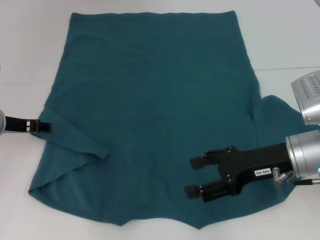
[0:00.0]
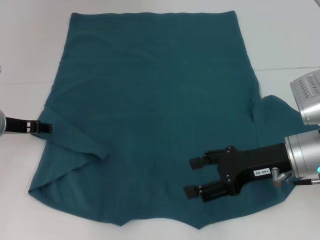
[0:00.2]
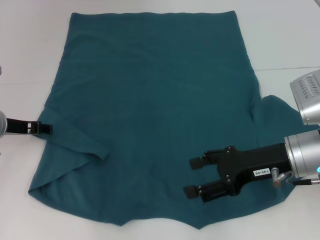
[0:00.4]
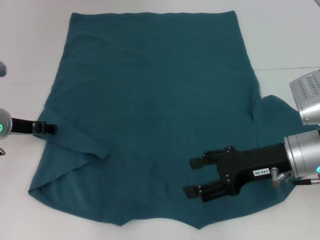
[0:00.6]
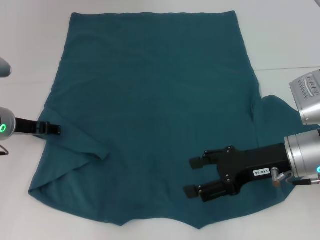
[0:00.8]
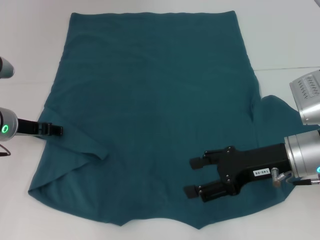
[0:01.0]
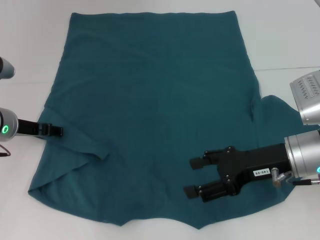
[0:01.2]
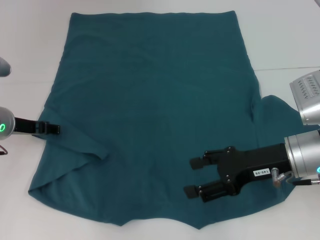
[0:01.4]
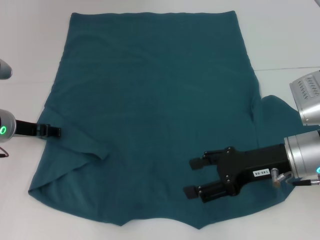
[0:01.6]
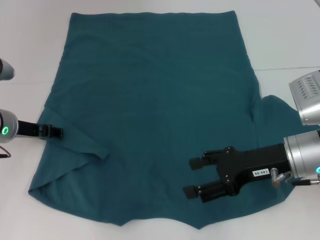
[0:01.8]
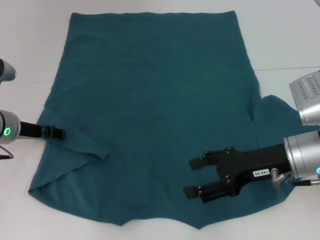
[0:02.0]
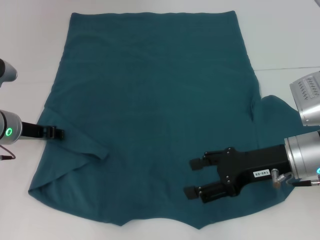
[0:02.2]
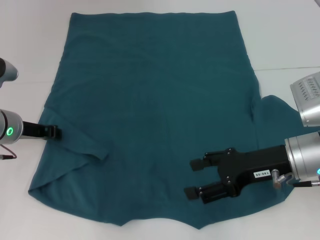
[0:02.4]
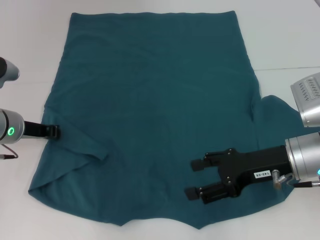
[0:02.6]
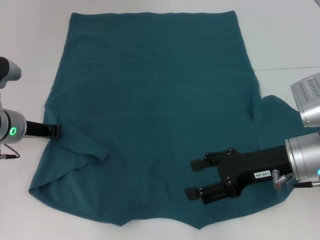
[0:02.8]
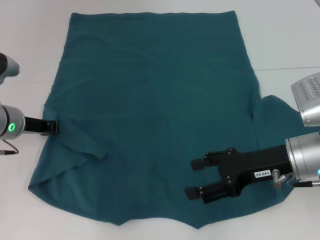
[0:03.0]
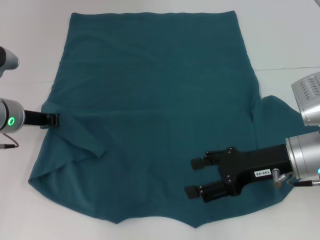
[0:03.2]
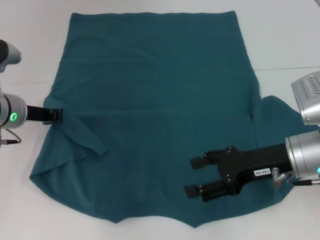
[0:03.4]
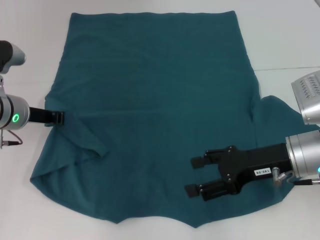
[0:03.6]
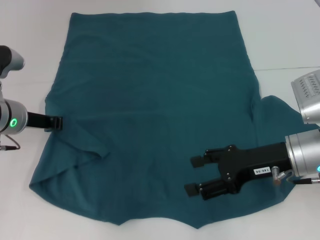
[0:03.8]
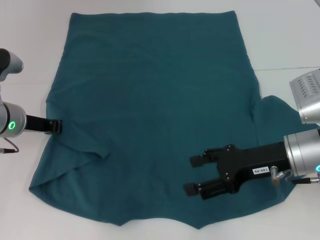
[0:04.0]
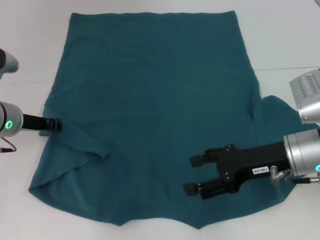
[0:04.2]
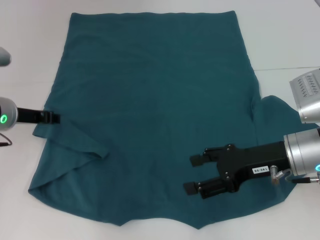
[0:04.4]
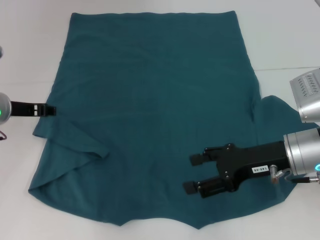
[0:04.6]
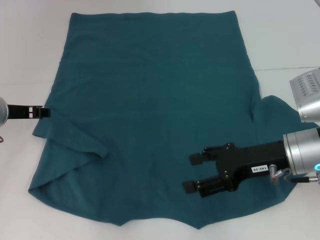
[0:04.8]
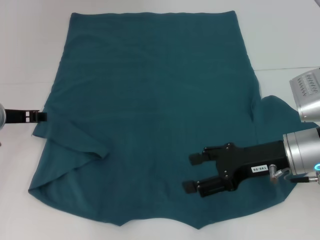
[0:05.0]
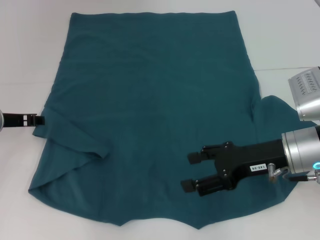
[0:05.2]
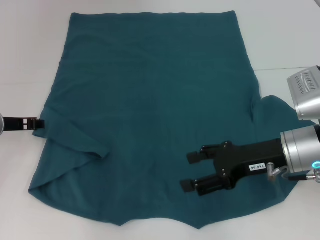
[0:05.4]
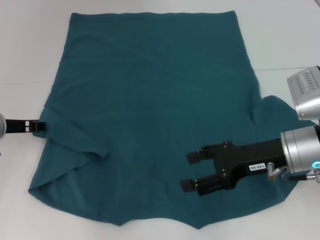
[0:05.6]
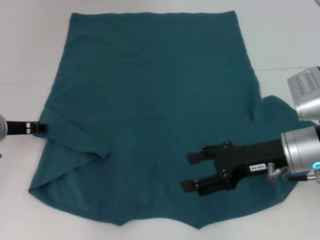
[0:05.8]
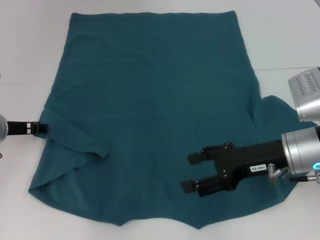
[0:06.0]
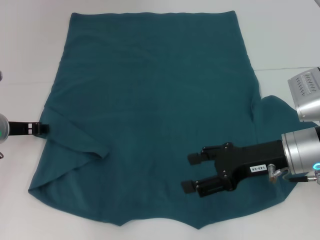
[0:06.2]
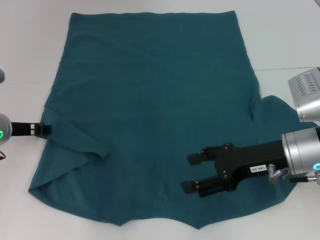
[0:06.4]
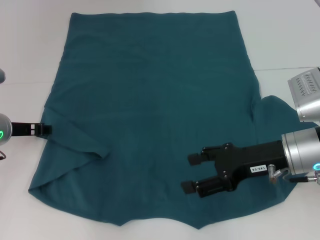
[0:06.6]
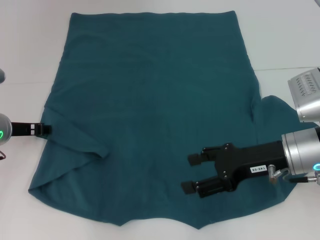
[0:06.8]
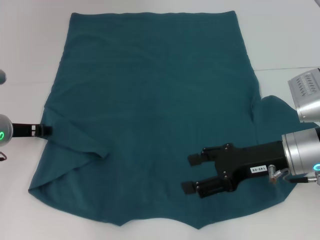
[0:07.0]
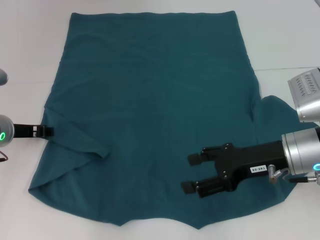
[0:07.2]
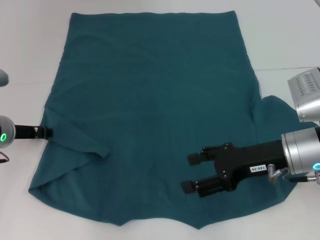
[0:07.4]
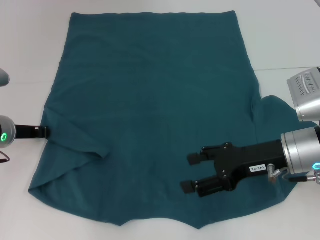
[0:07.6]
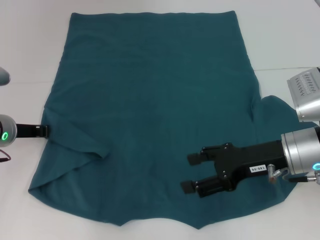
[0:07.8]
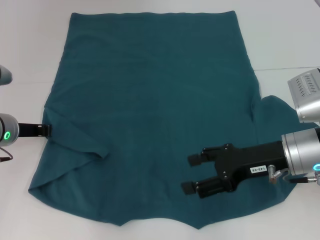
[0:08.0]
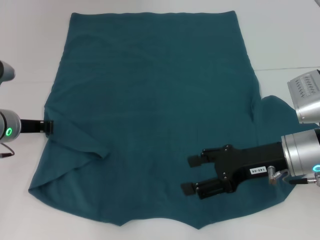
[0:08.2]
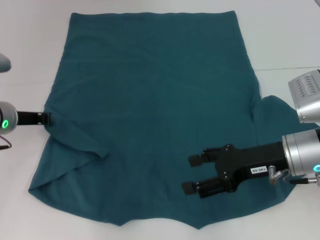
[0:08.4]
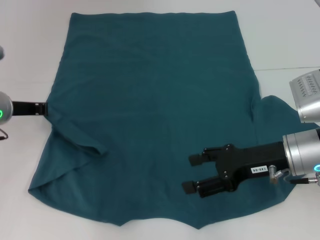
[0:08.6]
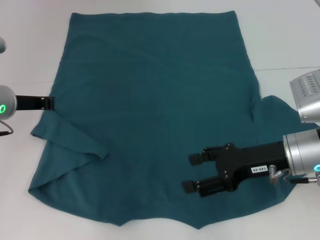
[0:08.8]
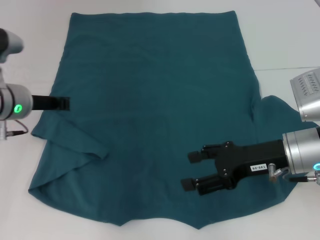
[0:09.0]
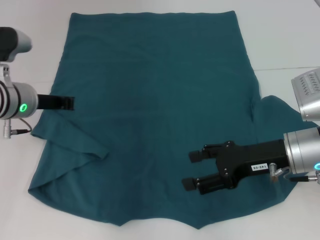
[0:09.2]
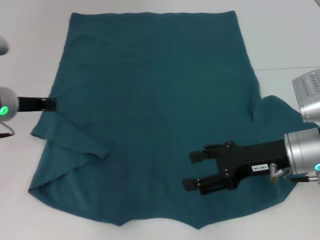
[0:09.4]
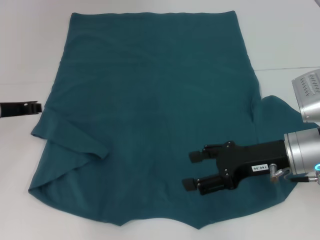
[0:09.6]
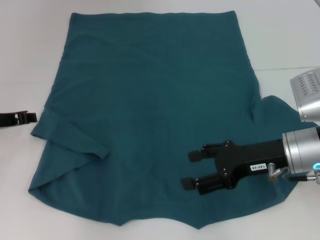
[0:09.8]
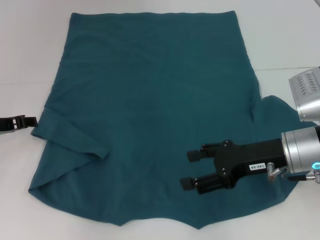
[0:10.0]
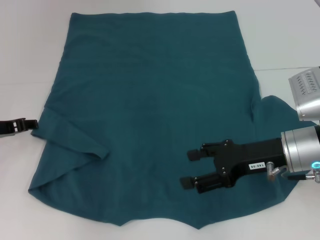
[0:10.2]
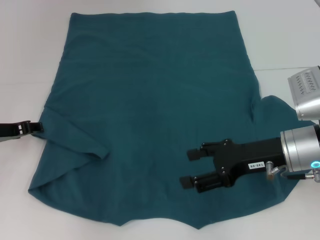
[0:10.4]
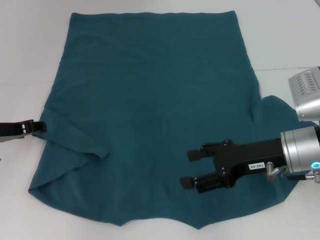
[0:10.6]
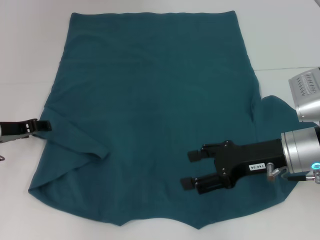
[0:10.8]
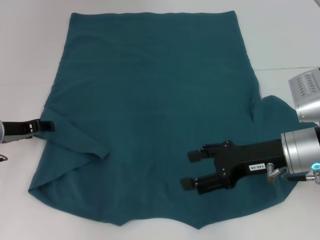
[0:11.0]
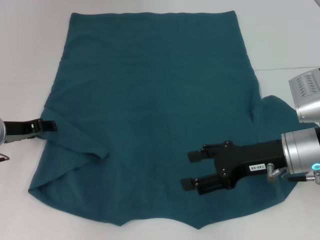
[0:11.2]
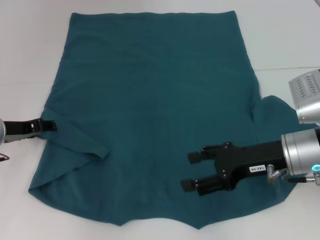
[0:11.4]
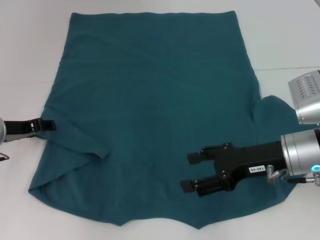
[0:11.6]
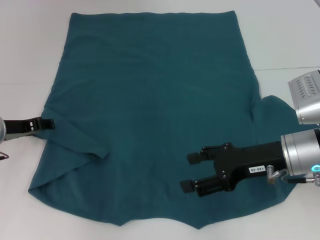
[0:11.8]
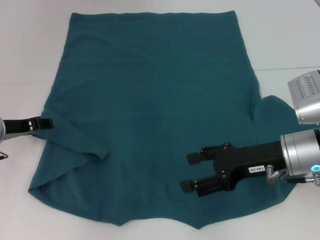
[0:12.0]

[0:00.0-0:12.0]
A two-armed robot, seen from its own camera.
0:00.0 to 0:01.6: There are only small adjustments of the grippers.
0:01.6 to 0:03.0: The left gripper closes up.
0:03.0 to 0:06.0: The grippers make only small movements.
0:06.0 to 0:07.6: The two grippers keep their place.
0:07.6 to 0:09.0: The left gripper goes roughly 5 cm upward, and closes up.
0:09.0 to 0:10.4: The left gripper goes approximately 5 cm to the left, and opens up.
0:10.4 to 0:12.0: The grippers stay close to where they were, moving slightly.

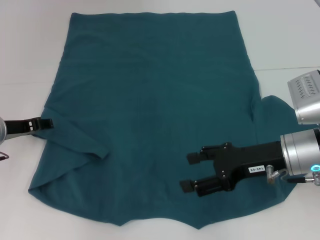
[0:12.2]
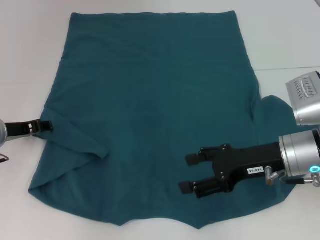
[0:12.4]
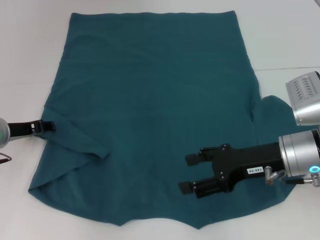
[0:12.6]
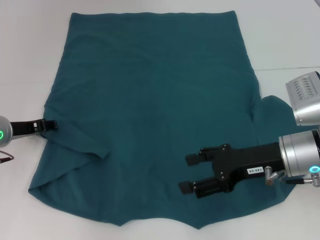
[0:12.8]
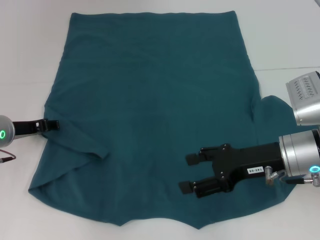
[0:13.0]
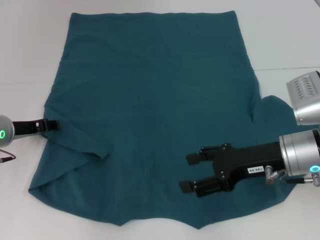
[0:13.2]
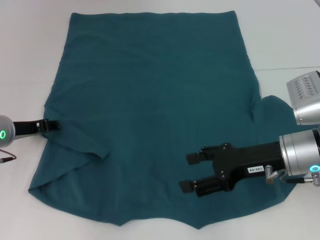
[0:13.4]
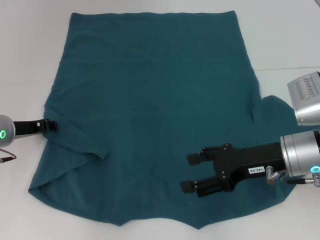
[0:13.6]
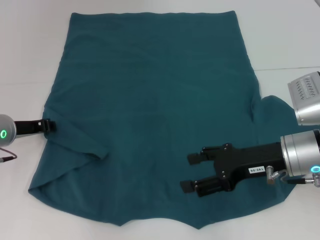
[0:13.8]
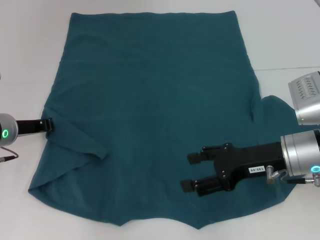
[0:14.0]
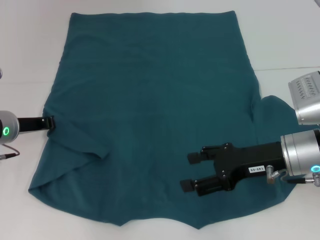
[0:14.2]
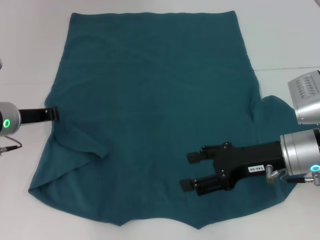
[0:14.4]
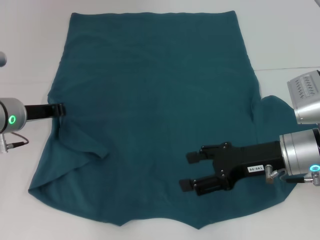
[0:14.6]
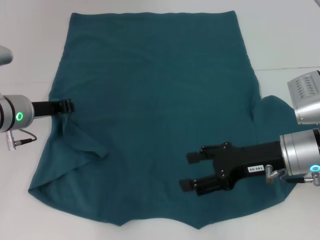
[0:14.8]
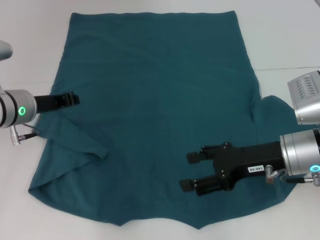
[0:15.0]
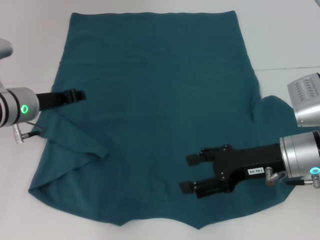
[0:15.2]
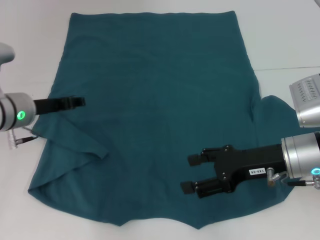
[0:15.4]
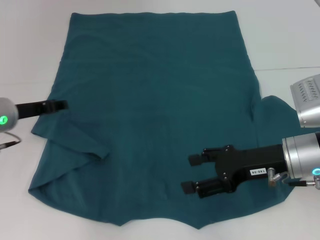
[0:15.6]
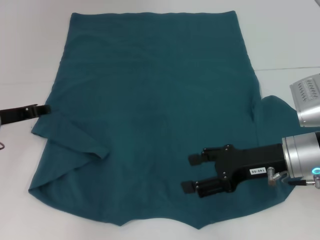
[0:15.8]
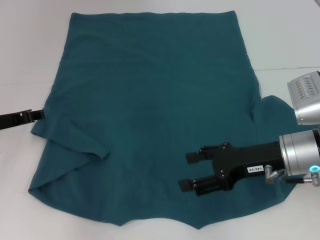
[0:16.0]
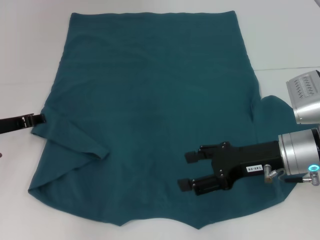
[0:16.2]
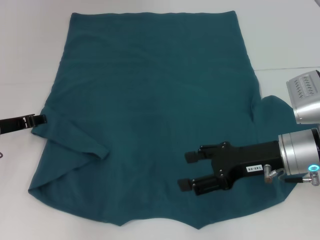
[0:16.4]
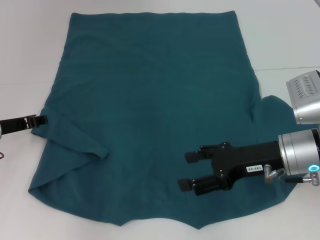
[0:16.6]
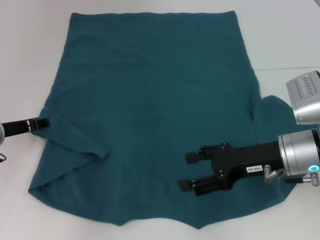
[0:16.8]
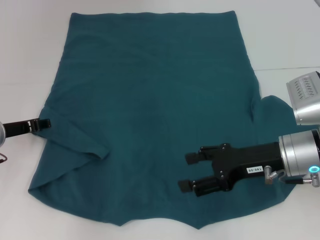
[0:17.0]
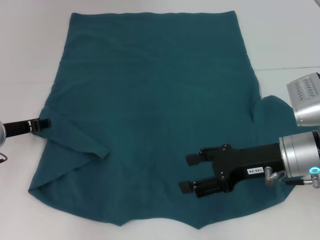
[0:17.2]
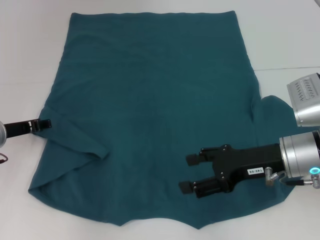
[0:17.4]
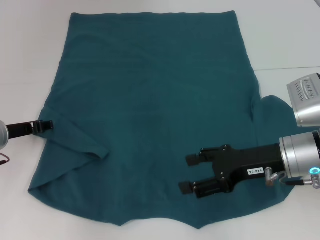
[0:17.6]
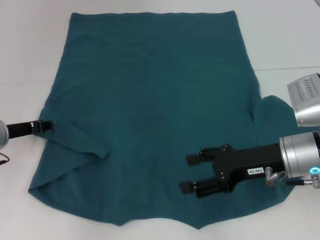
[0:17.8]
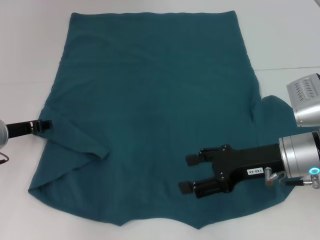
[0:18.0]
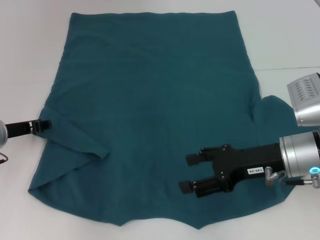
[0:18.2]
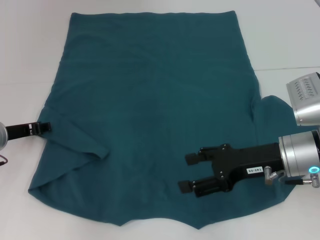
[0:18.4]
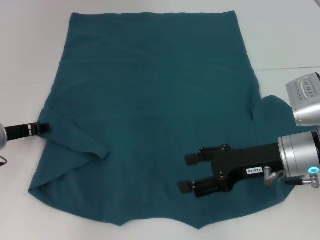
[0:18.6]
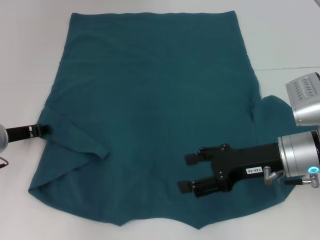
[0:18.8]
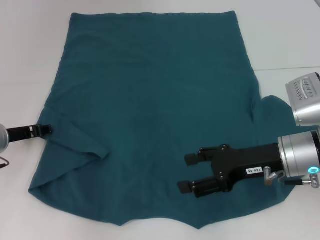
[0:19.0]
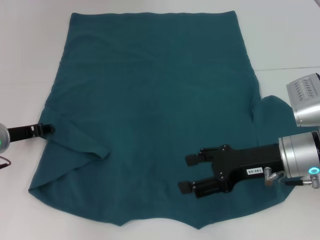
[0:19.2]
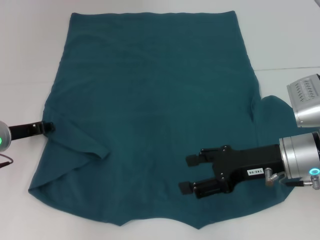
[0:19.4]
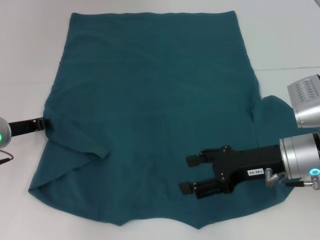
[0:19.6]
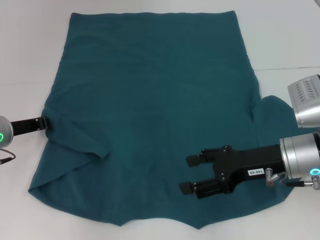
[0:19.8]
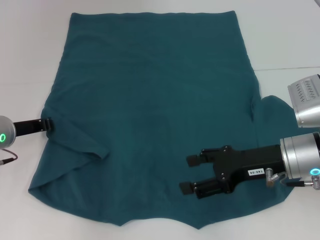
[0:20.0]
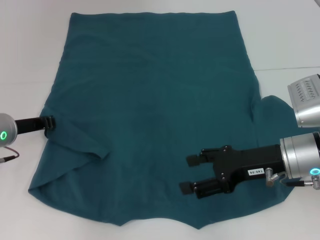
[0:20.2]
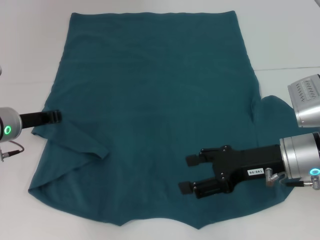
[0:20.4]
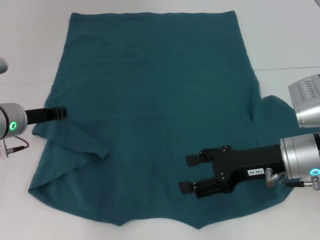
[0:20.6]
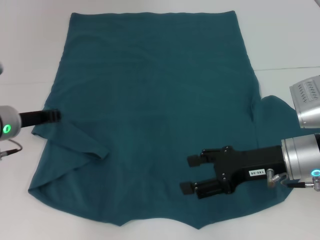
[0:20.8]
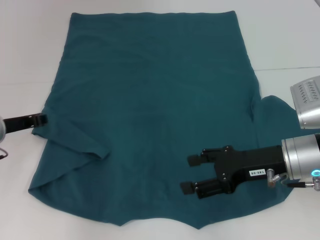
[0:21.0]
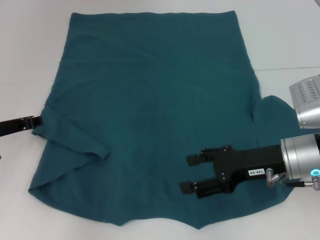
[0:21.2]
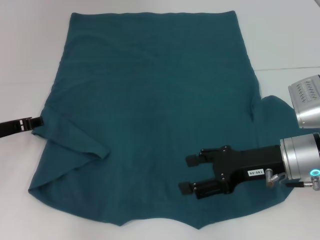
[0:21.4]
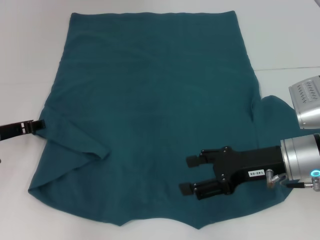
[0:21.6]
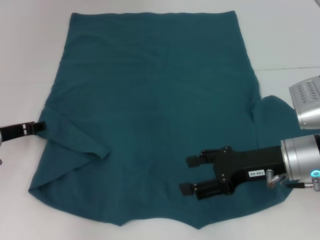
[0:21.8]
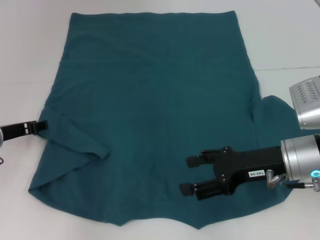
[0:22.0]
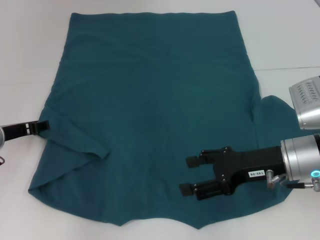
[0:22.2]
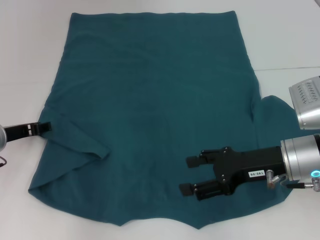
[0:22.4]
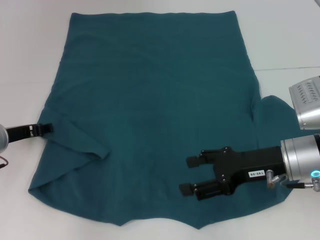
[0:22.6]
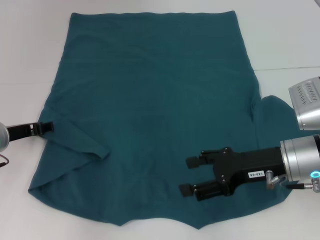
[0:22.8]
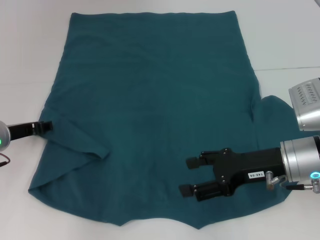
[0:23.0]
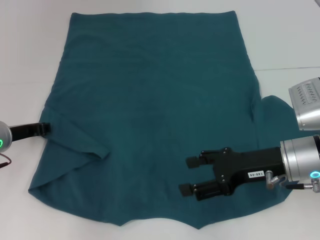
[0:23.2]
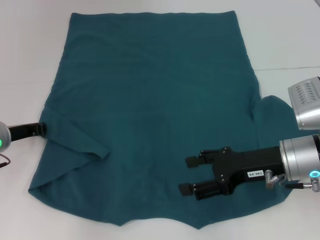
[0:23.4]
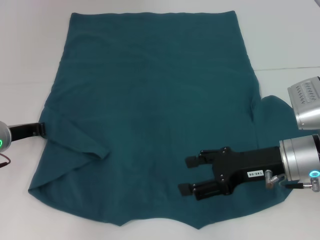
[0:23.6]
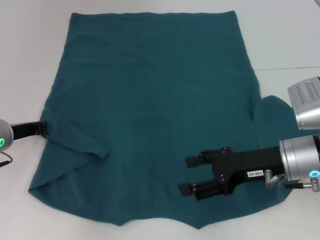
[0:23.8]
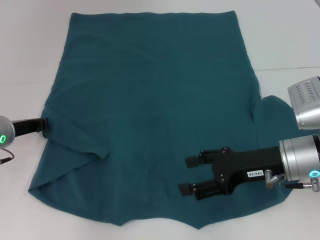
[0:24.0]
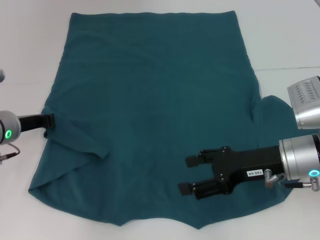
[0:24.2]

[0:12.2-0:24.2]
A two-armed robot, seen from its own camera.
0:12.2 to 0:13.8: Both grippers stay about where they are.
0:13.8 to 0:15.2: The left gripper ends up roughly 5 cm from where it was.
0:15.2 to 0:16.6: The left gripper travels to the left by roughly 5 cm, and opens its fingers.
0:16.6 to 0:18.2: Both grippers stay put.
0:18.2 to 0:19.8: The left gripper closes up.
0:19.8 to 0:21.2: The grippers make only small movements.
0:21.2 to 0:22.6: The left gripper opens up.
0:22.6 to 0:24.2: The left gripper closes.
